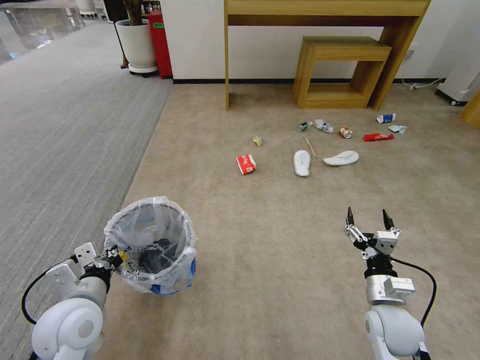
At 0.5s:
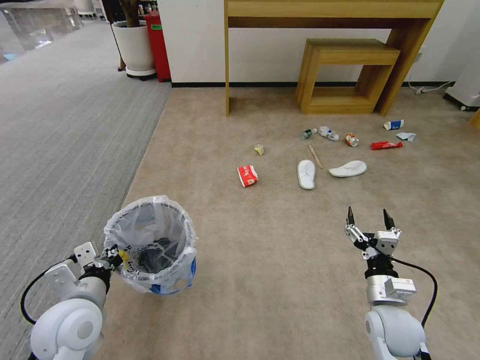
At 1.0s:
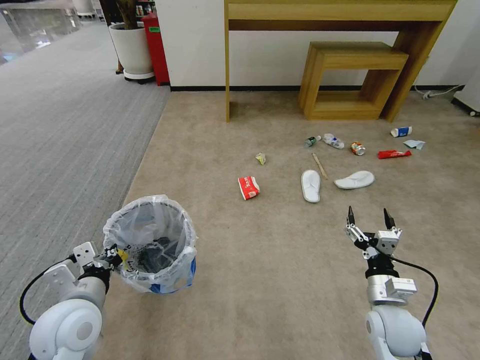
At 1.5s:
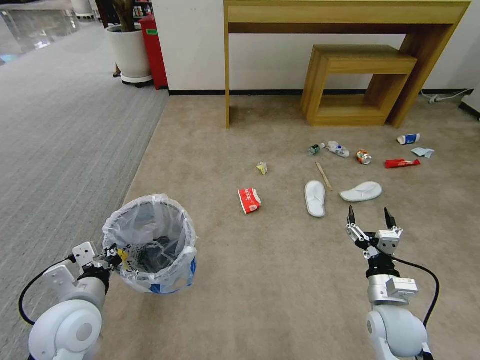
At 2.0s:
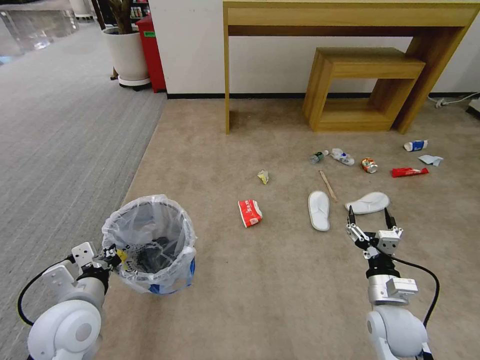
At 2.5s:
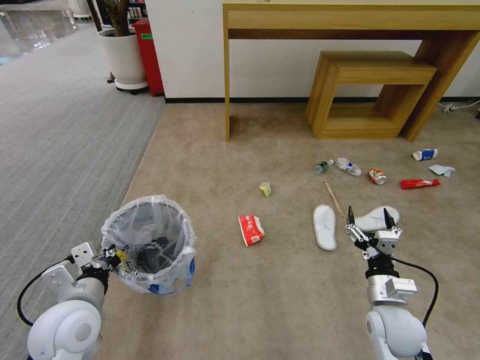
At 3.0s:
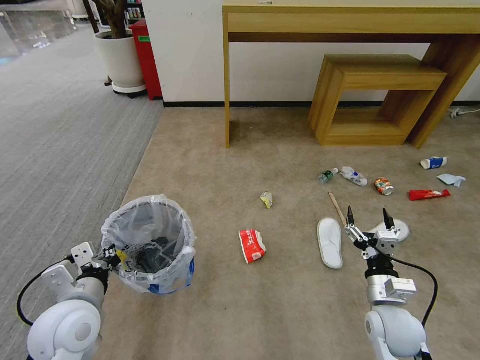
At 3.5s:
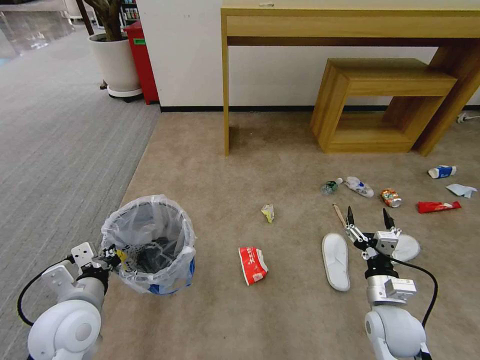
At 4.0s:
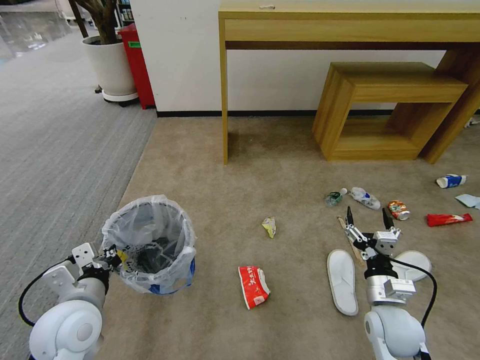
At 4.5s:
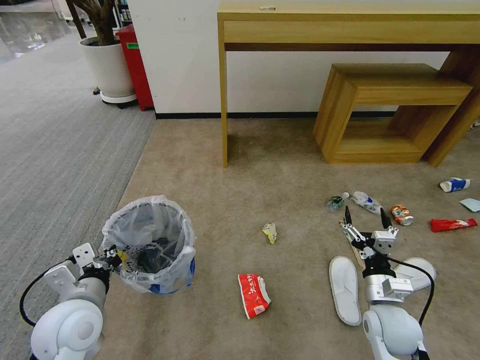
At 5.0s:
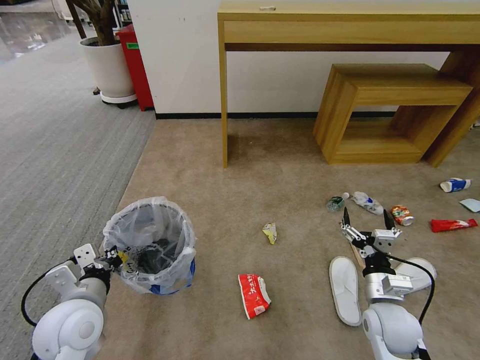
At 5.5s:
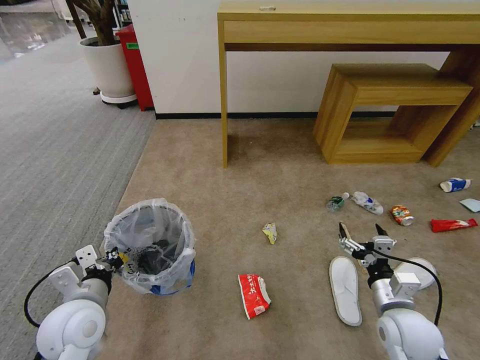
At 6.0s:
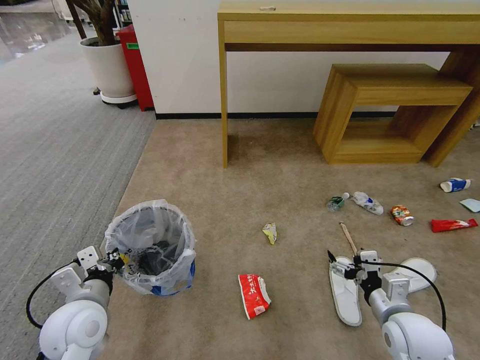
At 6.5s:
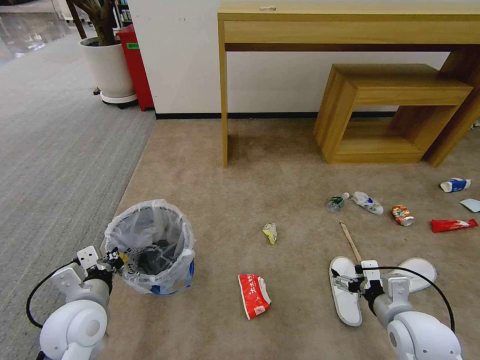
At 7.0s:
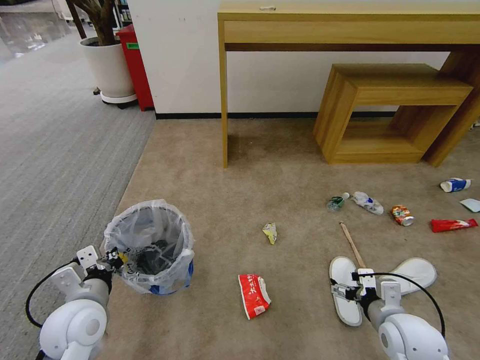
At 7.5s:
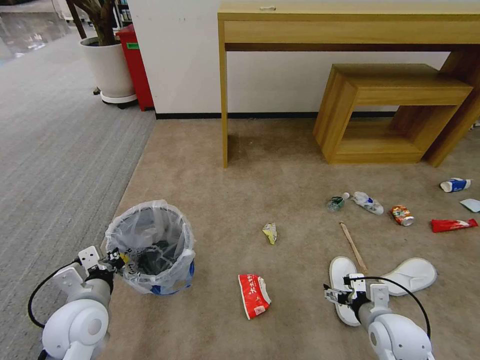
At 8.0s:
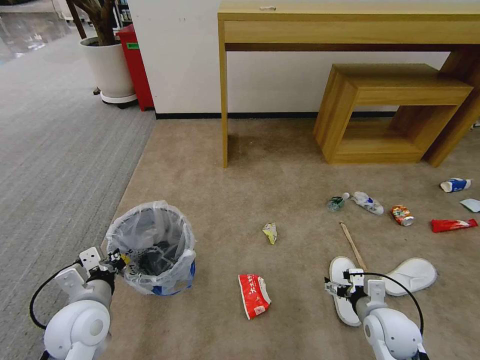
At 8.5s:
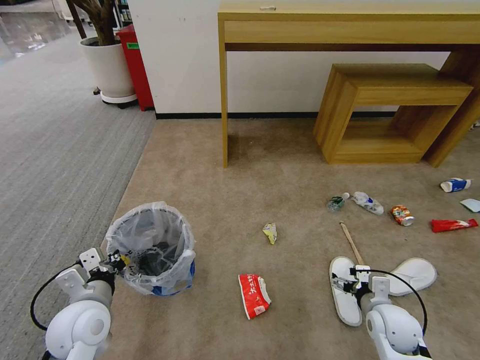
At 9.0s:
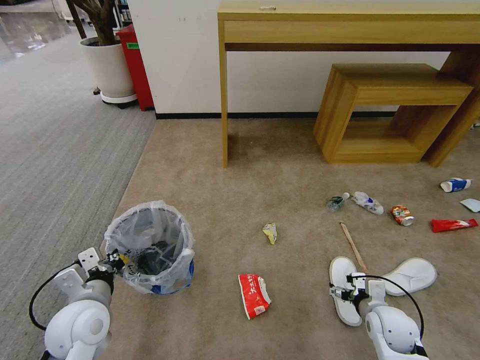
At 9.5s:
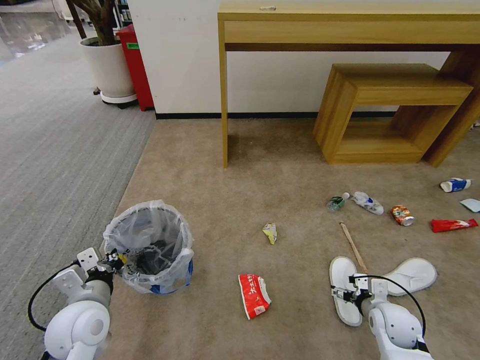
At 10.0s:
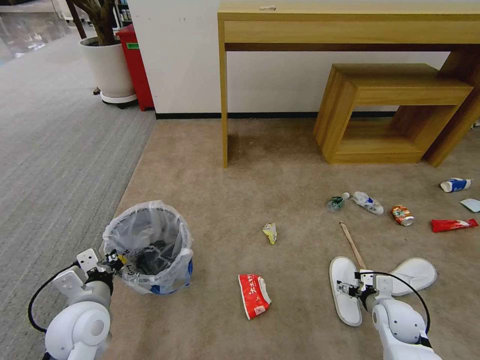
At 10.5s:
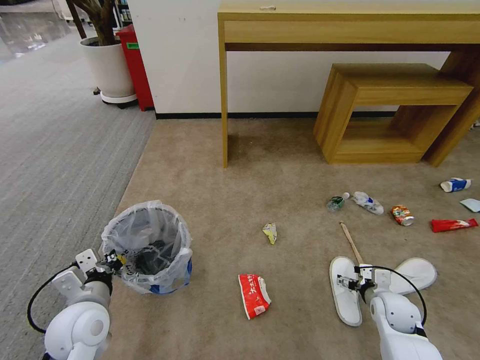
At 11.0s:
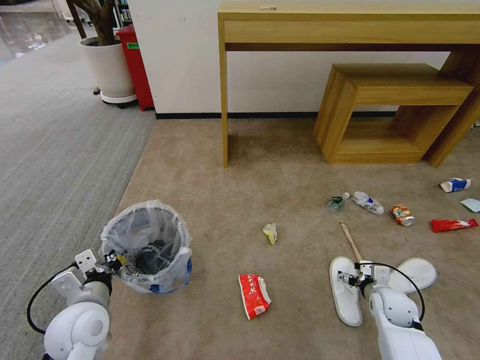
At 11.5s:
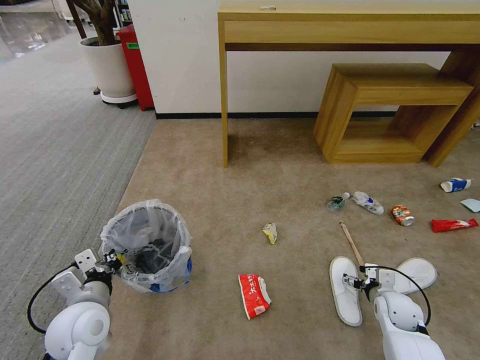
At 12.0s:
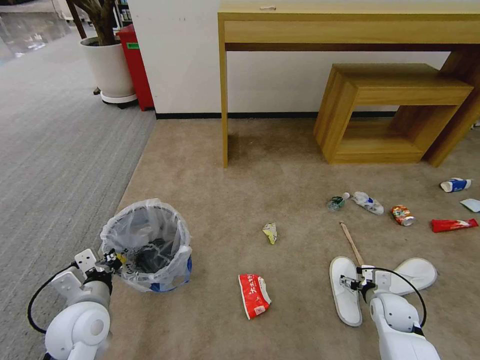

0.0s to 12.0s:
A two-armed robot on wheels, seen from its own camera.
Task of the whole recording: Pick up the trash bin and place the garbage on the floor into it.
6.0s to 8.0s: The right gripper travels downward by approximately 5 cm.
8.0s to 10.0s: The right gripper moves to the right, about 5 cm.
10.0s to 12.0s: There are only small adjustments of the grippers.

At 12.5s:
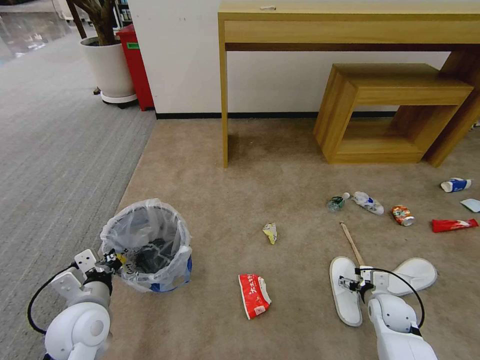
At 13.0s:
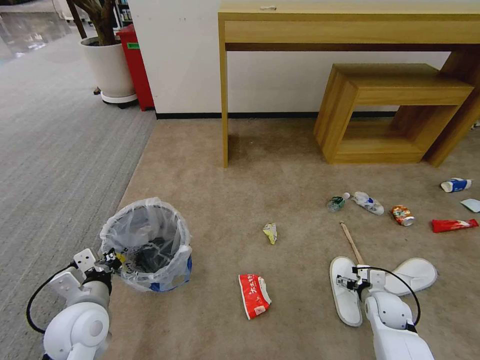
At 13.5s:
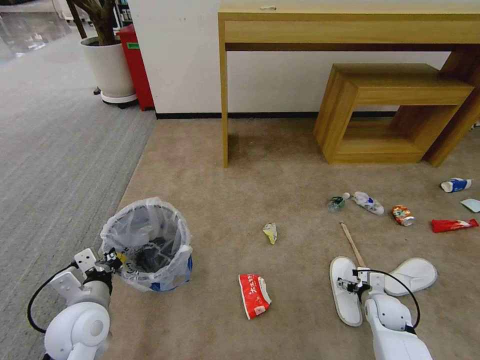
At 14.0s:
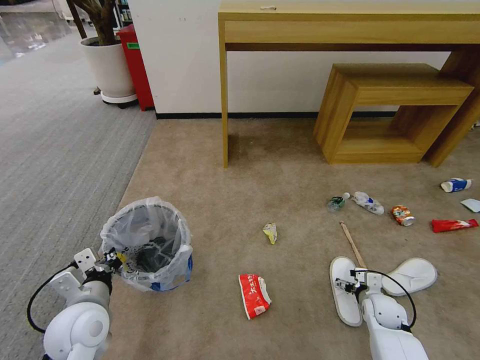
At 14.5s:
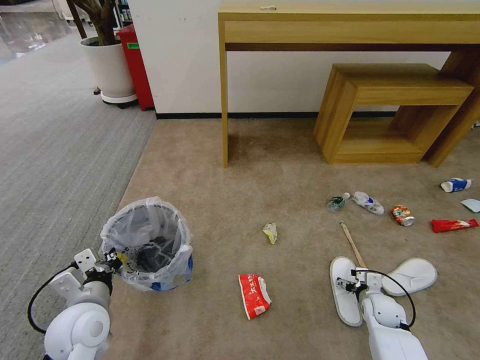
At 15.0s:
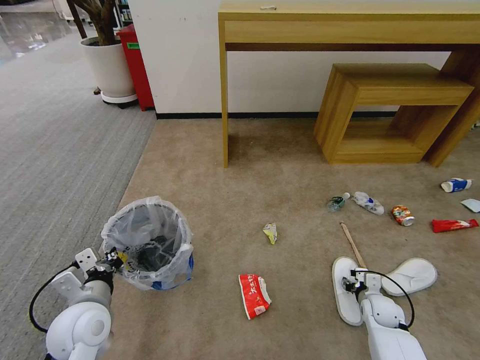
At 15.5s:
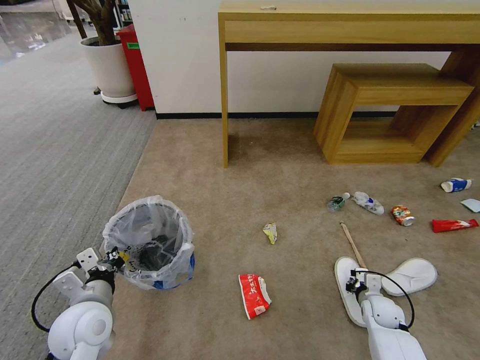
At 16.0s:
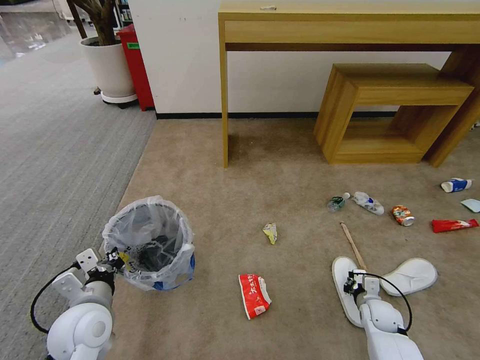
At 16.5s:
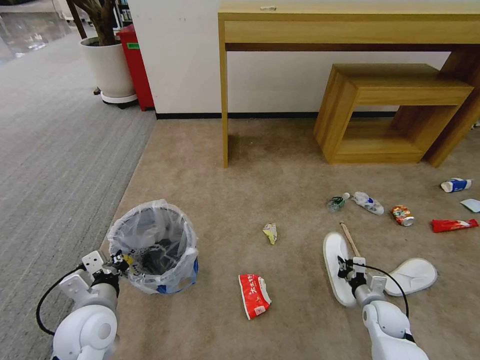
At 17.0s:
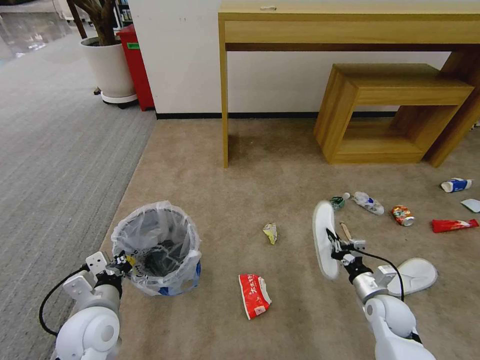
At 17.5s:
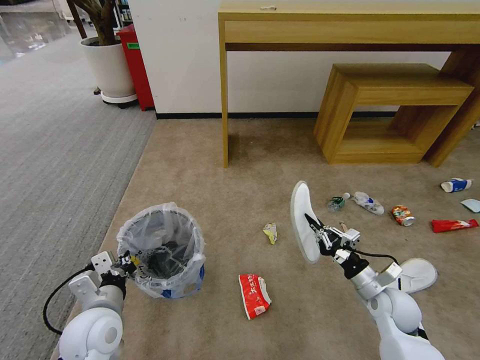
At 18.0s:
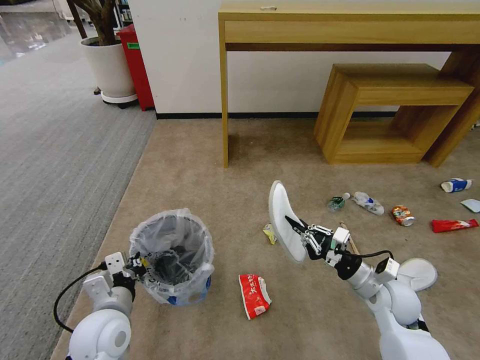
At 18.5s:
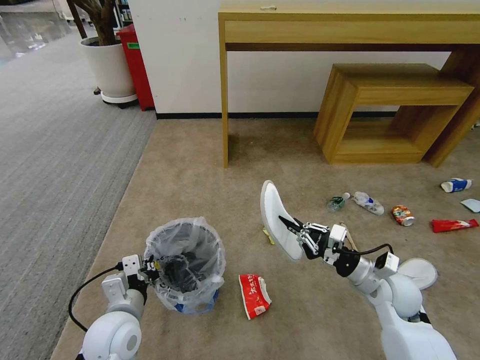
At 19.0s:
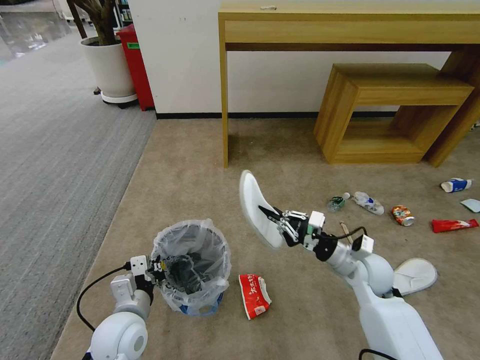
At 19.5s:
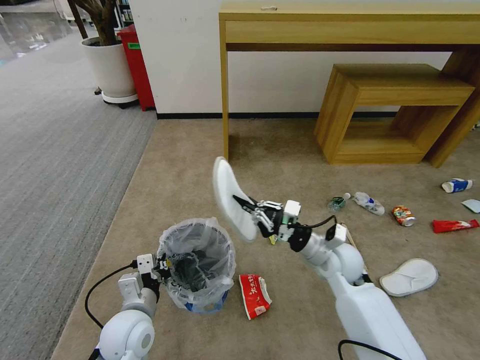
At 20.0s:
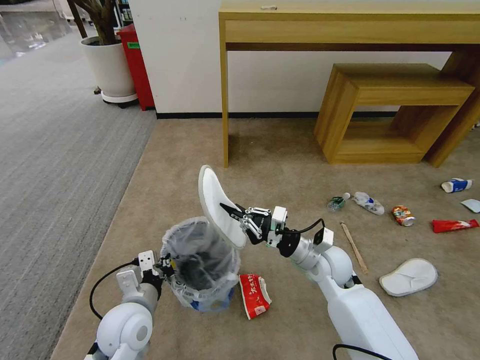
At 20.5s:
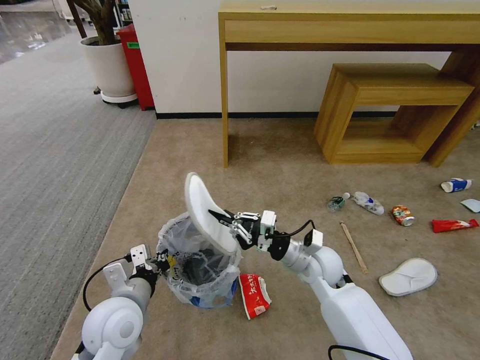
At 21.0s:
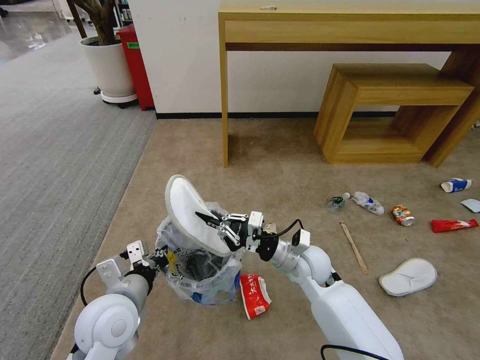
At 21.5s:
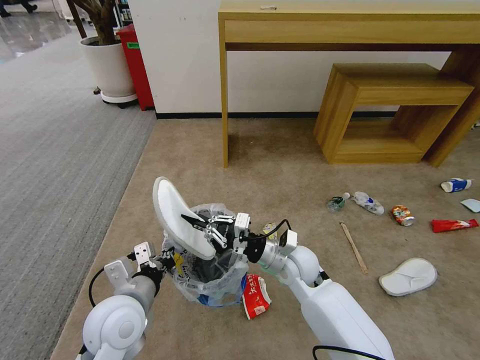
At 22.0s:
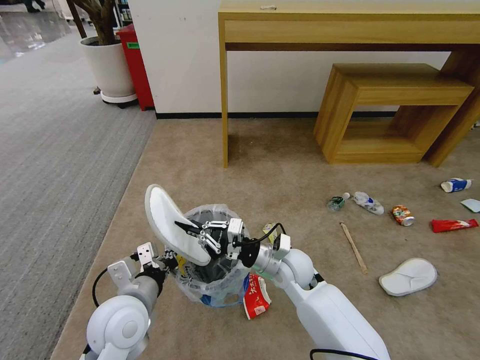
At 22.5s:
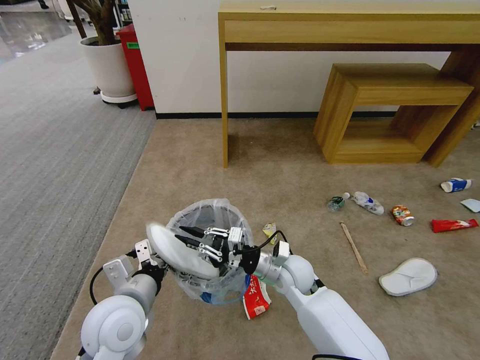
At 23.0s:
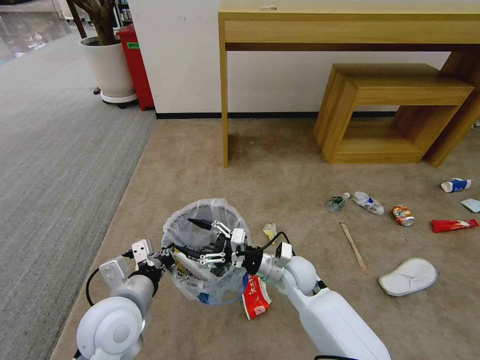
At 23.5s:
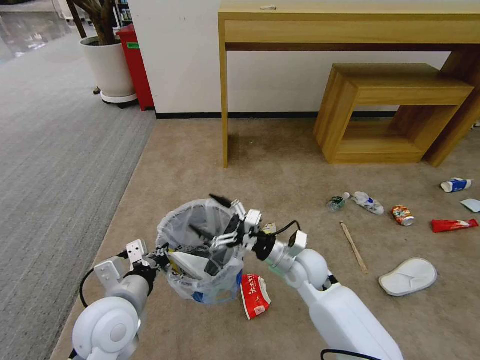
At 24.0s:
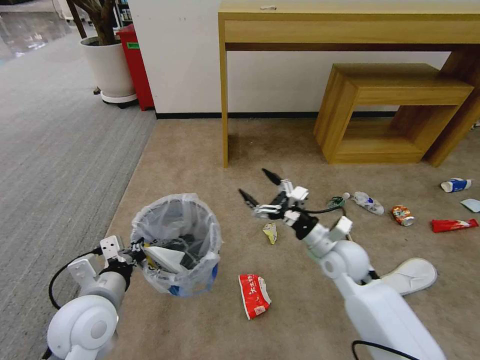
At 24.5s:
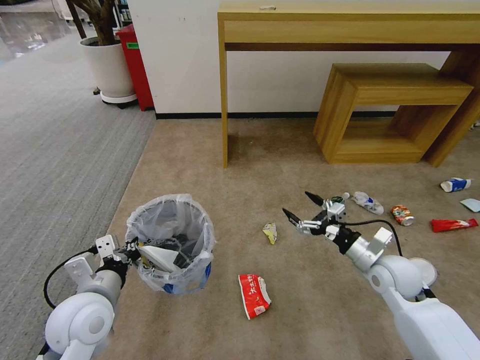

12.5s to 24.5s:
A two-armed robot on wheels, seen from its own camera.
Task of the whole recording: Pick up the trash bin and place the garbage on the floor into it.
12.5s to 14.5s: The grippers move only a little.
14.5s to 16.5s: The right gripper closes.
16.5s to 18.5s: The right gripper shifts about 15 cm upward.
18.5s to 20.5s: The right gripper is displaced to the left and forward by approximately 15 cm. Meanwhile the left gripper changes place by about 5 cm.
20.5s to 22.5s: The right gripper heads to the left, covering approximately 5 cm.
22.5s to 24.5s: The right gripper shifts roughly 20 cm to the right, and opens its fingers; the left gripper moves to the left, approximately 5 cm.

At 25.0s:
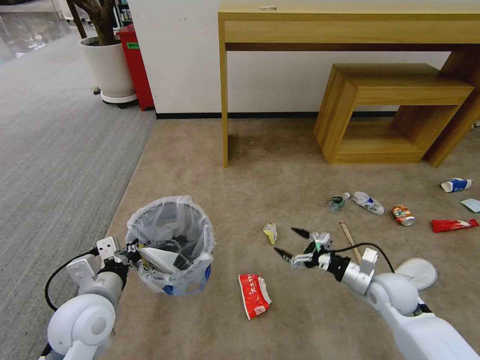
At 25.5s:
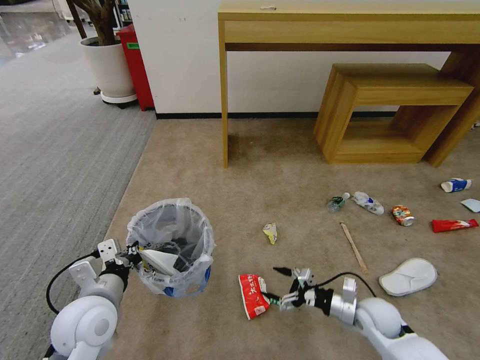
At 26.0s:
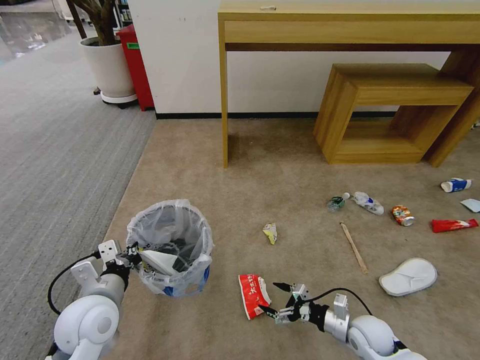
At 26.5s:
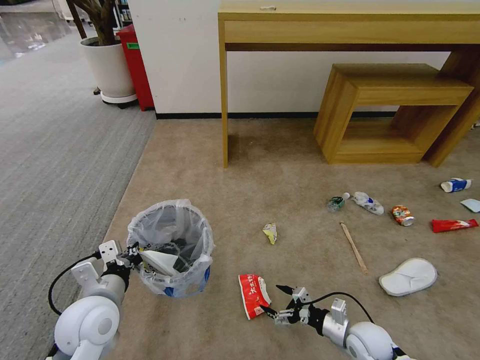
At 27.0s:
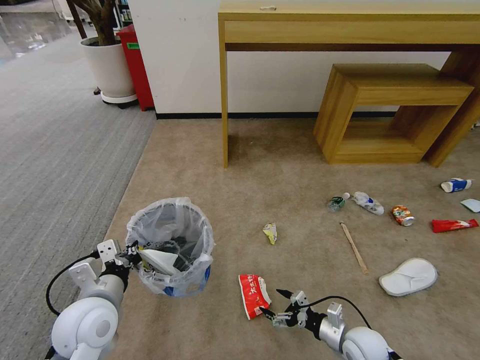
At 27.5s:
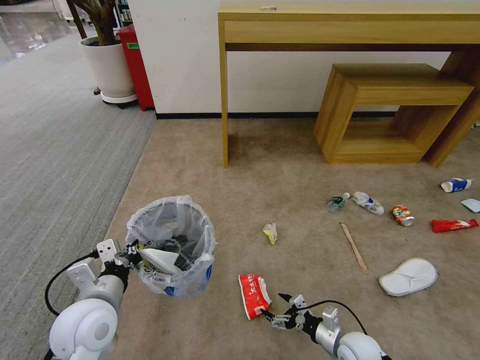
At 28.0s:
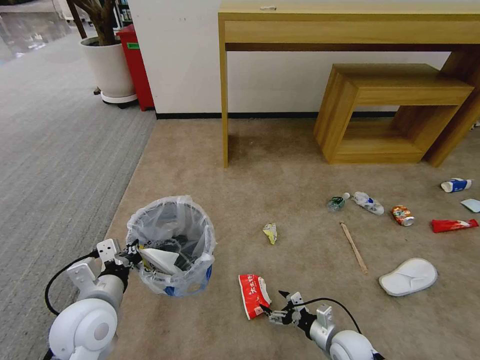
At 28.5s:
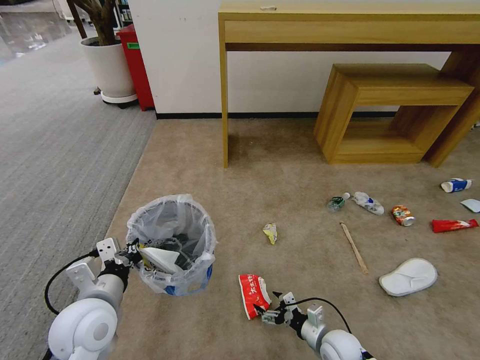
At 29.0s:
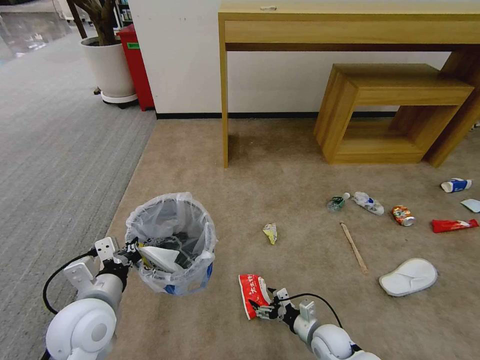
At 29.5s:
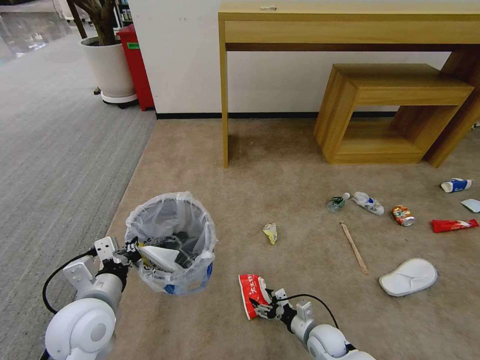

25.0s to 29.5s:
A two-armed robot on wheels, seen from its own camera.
Task of the whole recording: Pick up the trash bin and place the garbage on the floor into it.
25.0s to 27.0s: The right gripper travels downward and backward by roughly 15 cm.
27.0s to 29.5s: The right gripper shifts roughly 10 cm to the left and downward.
